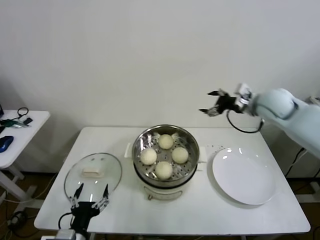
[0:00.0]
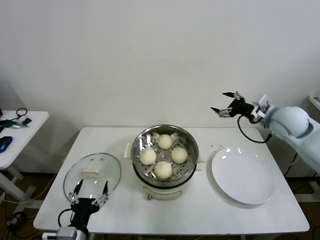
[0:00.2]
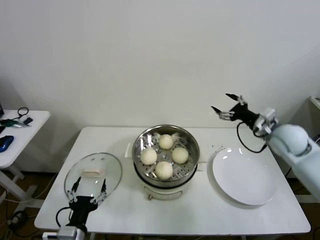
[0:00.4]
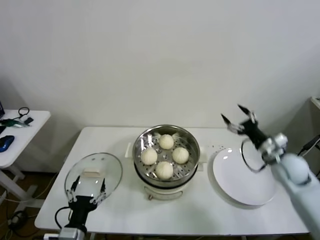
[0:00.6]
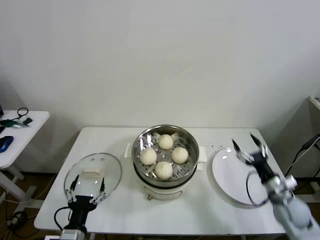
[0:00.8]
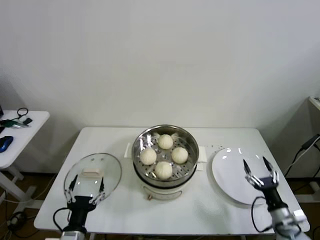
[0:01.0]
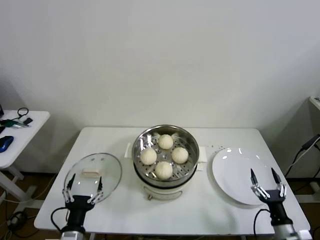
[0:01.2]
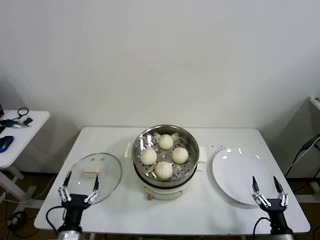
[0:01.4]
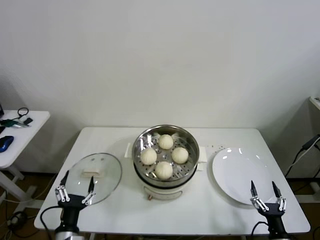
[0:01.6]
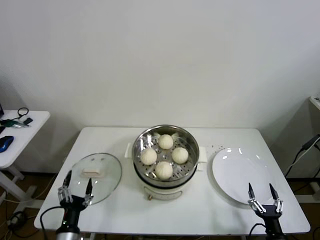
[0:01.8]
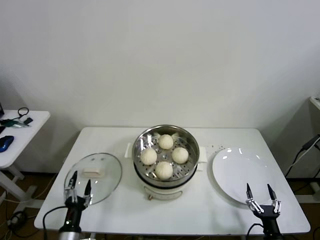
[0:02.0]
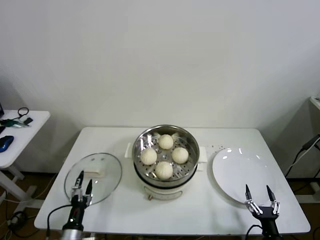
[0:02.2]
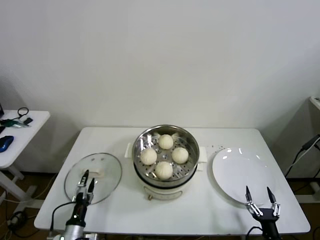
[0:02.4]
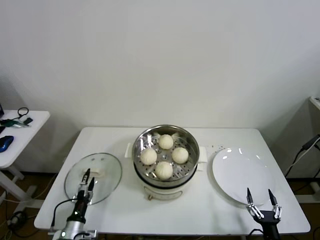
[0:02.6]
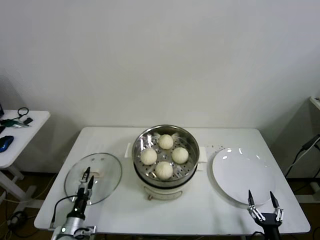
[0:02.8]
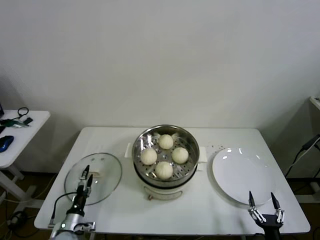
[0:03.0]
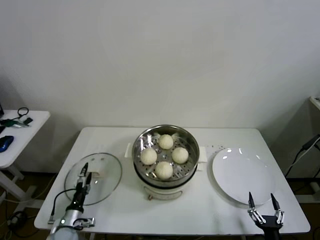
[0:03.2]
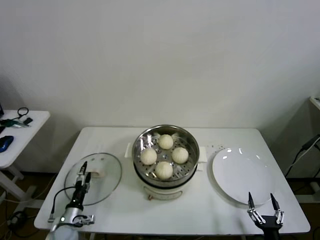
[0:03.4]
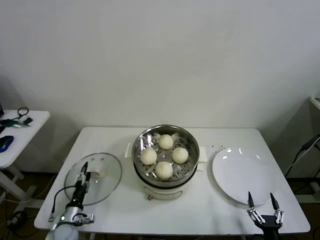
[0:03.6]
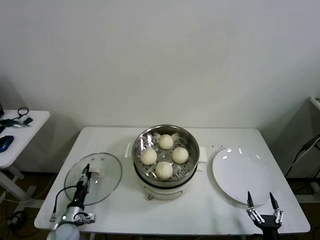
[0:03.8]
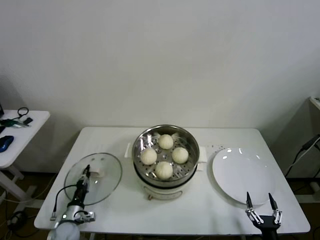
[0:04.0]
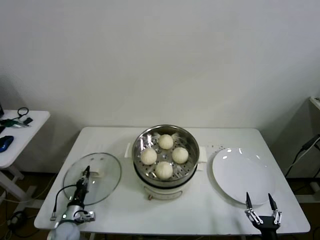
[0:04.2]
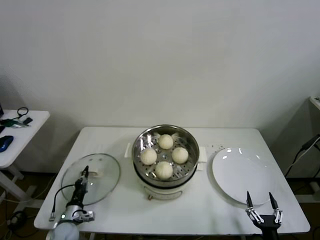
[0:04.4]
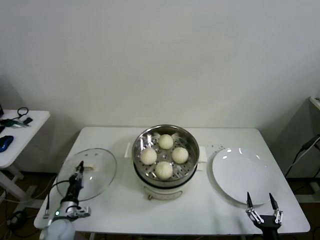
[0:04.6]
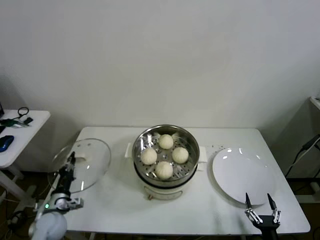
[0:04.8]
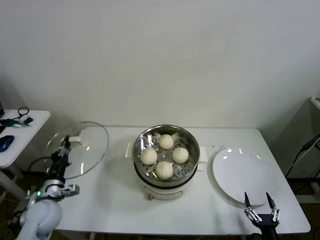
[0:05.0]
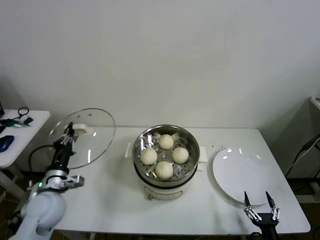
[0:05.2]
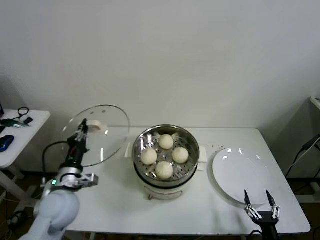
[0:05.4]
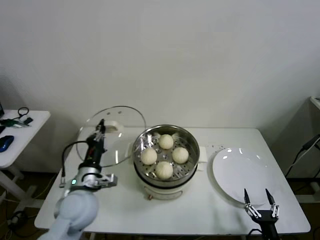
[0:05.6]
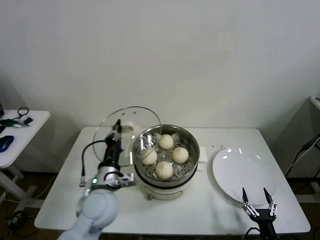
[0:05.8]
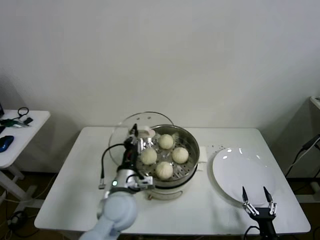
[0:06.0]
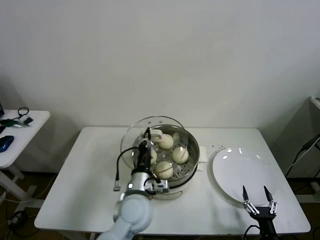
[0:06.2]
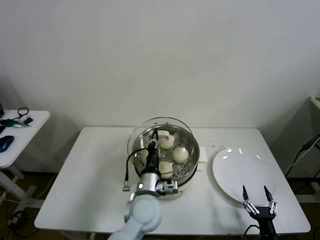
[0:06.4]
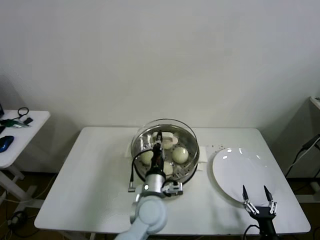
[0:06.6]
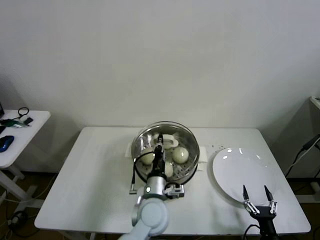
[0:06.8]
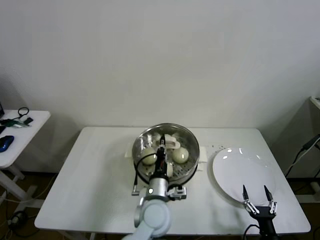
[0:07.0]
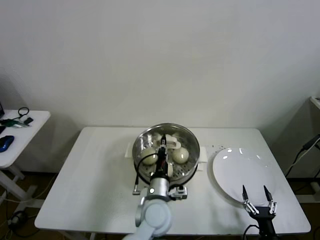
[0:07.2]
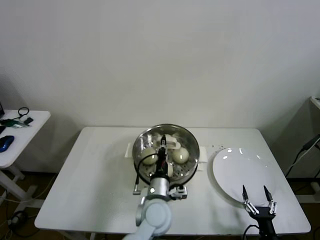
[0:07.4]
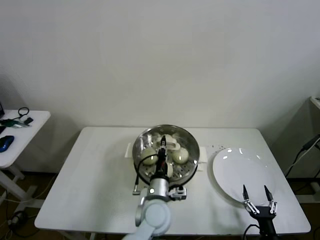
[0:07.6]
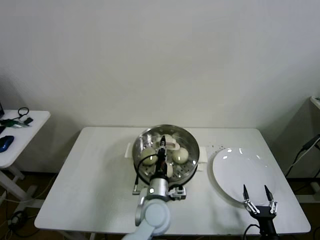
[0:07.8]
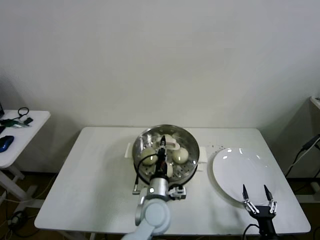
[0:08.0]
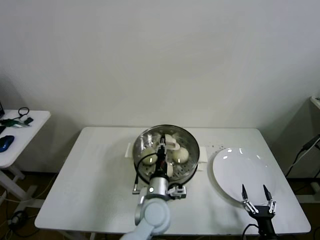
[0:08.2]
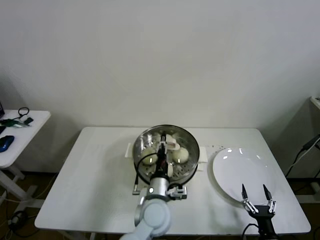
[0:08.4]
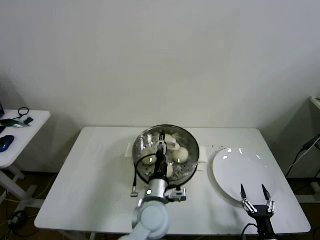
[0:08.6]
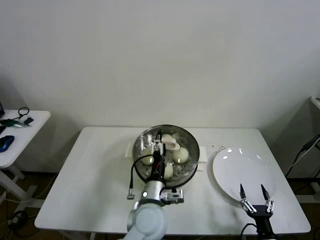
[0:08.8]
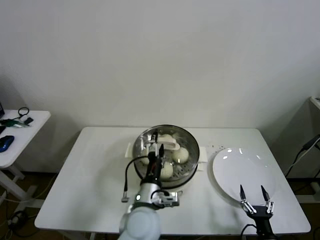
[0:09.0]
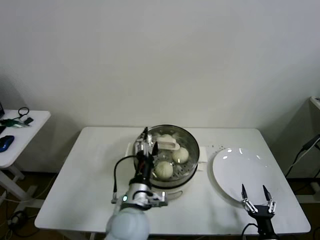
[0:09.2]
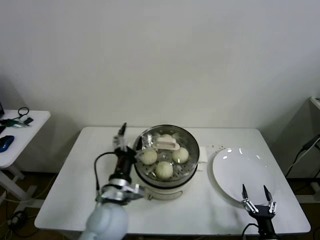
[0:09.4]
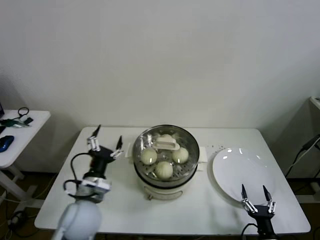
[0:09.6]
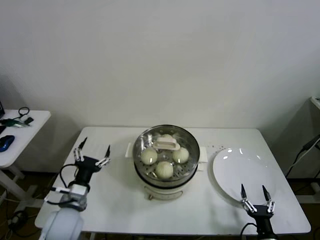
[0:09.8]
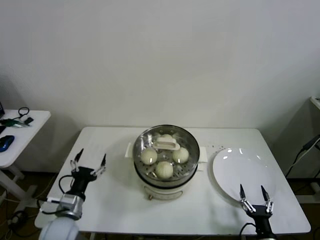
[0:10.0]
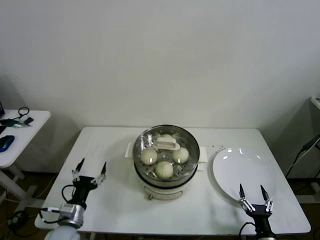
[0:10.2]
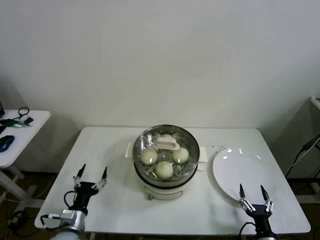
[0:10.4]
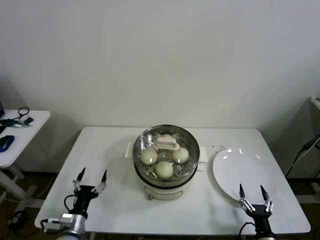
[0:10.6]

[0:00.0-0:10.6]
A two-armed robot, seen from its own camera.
Task of the whole recording: take steamed baozi put them in steamer then cover it.
Step, 0:00.0 to 0:04.0: Grasp the pot lid with left gripper.
Step, 0:04.2 to 0:08.8: Place the pot lid on the steamer with left gripper.
0:00.0 to 0:01.6: The right gripper heads downward and backward, covering some 50 cm, while the left gripper moves approximately 5 cm.
0:01.6 to 0:03.0: The left gripper shifts approximately 20 cm downward, forward and to the left.
0:03.0 to 0:04.6: The left gripper closes.
0:04.6 to 0:06.0: The left gripper heads to the right and upward, covering approximately 30 cm.
0:06.0 to 0:07.6: The left gripper travels to the right and downward by some 15 cm.
0:07.6 to 0:09.0: The left gripper moves approximately 5 cm, and opens up.
0:09.0 to 0:10.6: The left gripper heads to the left and downward, covering about 30 cm.

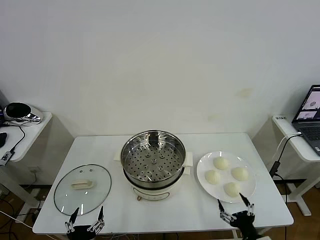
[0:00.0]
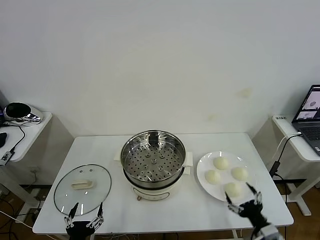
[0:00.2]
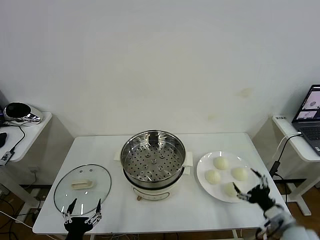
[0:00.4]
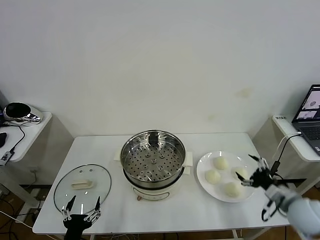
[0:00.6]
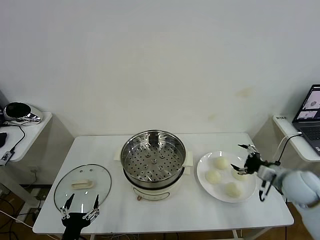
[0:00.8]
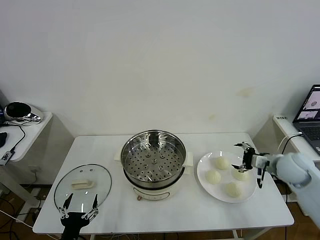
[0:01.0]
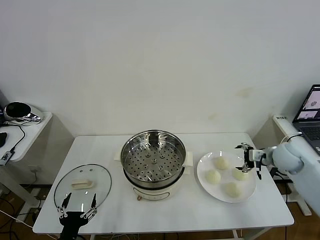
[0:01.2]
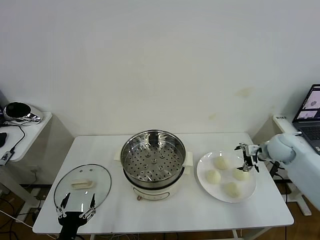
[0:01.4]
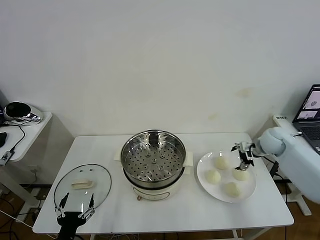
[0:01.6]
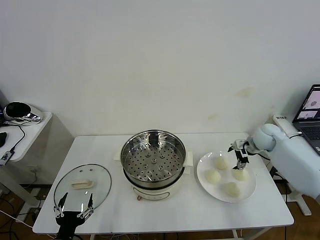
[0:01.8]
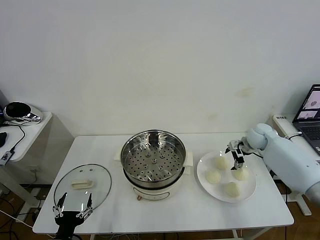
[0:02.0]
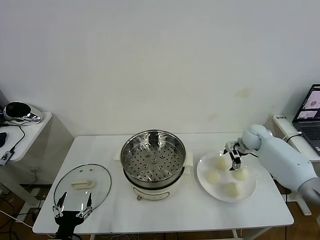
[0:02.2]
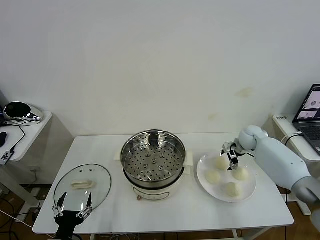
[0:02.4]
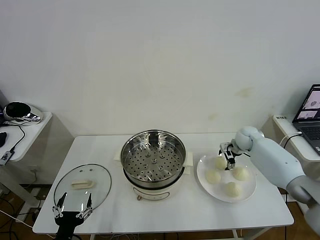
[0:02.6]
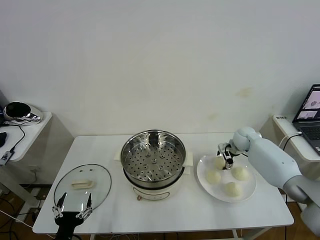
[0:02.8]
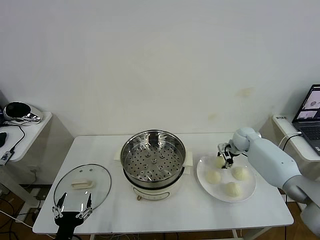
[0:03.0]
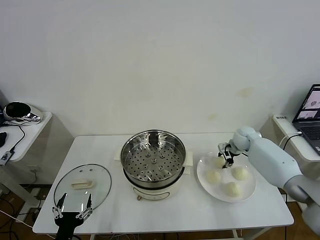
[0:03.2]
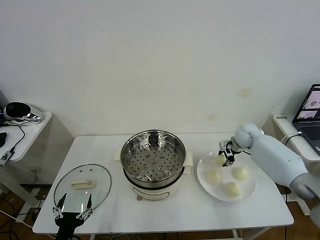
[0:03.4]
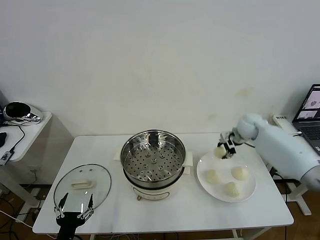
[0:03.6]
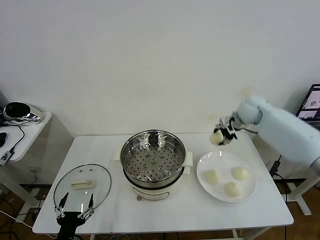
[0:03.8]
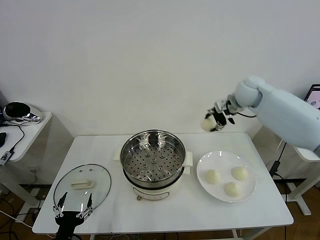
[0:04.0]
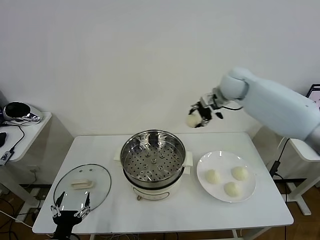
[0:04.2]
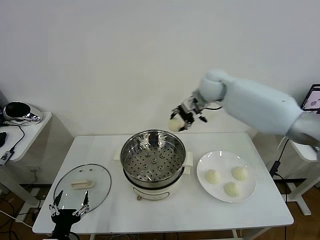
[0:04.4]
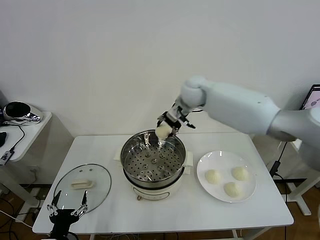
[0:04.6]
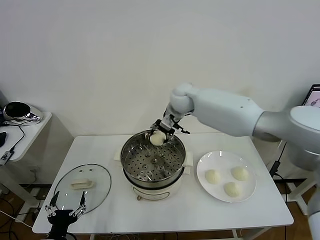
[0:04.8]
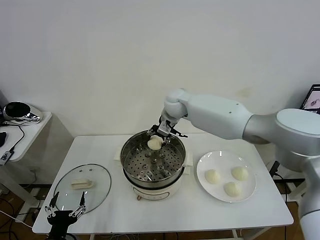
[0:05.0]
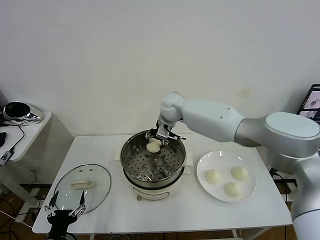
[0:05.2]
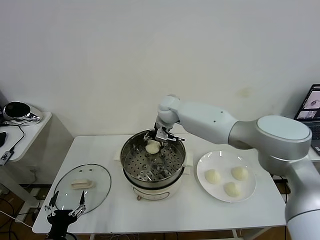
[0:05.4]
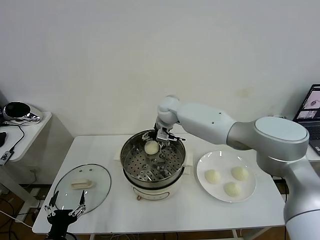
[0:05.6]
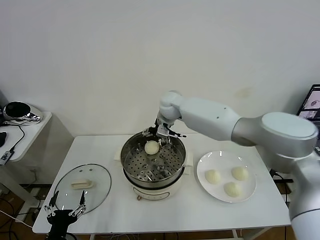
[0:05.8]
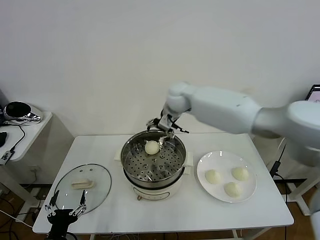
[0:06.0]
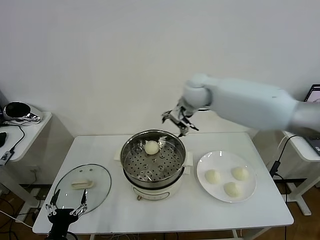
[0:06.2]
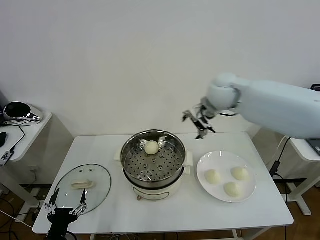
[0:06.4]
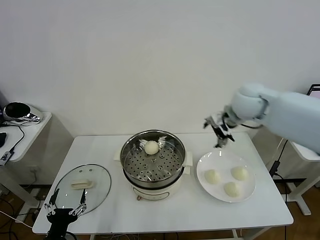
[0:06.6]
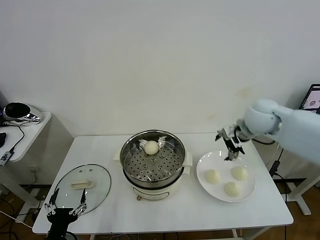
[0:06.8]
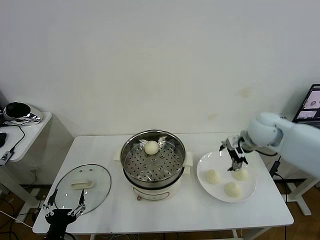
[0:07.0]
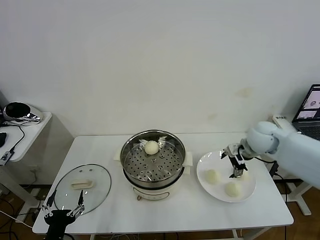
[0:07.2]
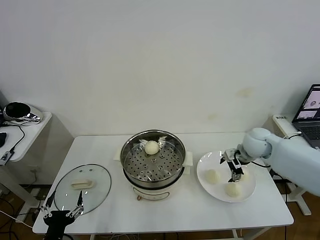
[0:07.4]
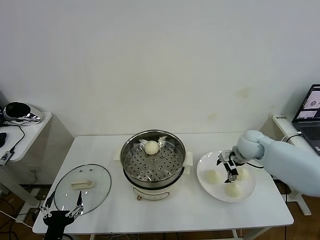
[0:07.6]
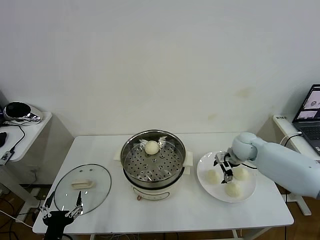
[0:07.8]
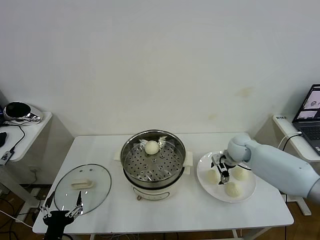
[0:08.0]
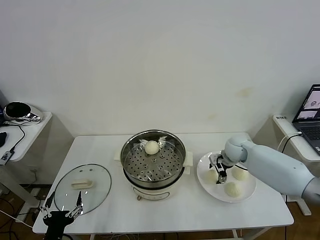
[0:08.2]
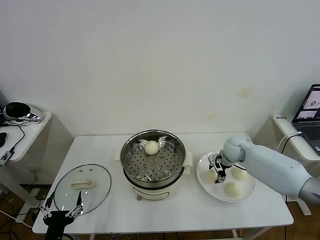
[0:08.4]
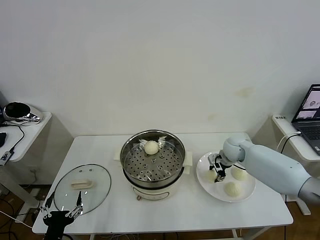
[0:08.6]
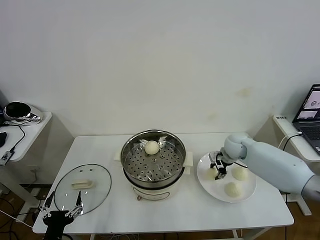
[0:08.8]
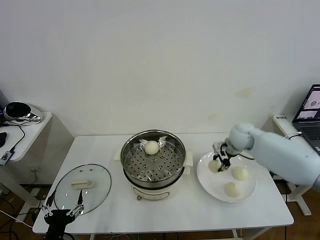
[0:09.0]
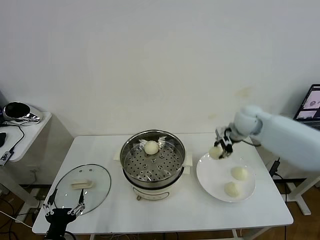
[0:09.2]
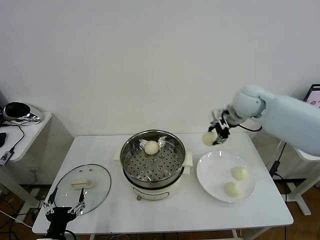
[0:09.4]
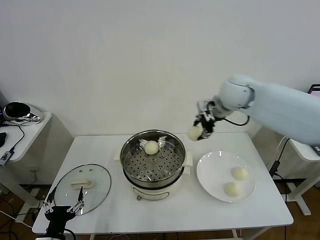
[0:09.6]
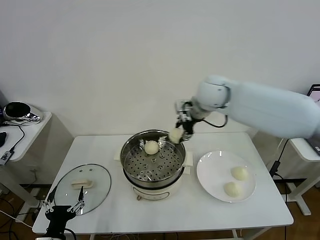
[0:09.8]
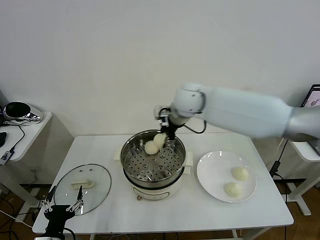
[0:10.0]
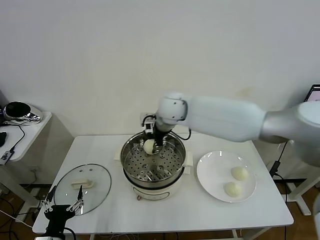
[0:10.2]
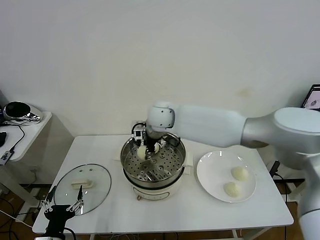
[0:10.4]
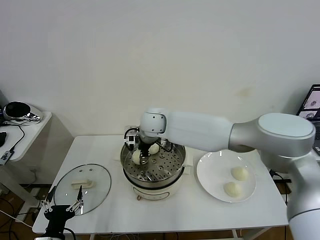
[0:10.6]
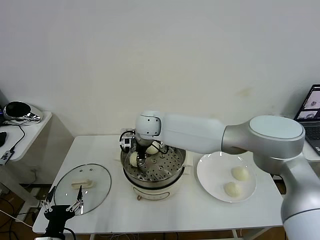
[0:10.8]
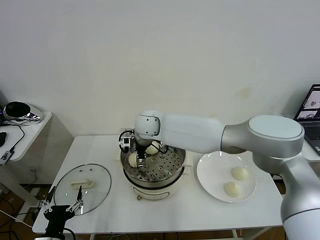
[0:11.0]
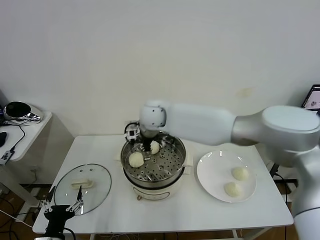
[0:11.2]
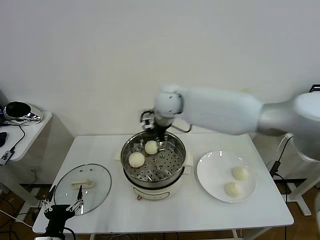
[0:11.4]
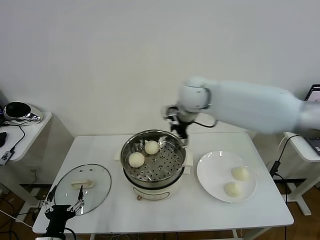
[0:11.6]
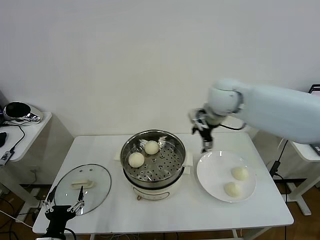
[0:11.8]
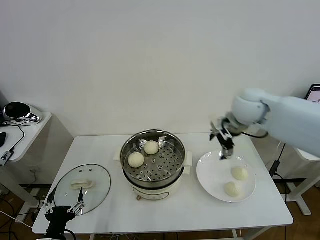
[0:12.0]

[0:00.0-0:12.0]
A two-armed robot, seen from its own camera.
Task of the whole recording: take steamed baozi put them in steamer then cover it.
Step, 0:00.0 to 0:03.0: Grasp the baozi in the plate with right gripper.
Step, 0:03.2 to 0:05.4: Place the baozi on the steamer with right gripper.
Step, 0:05.8 to 0:08.4: Grasp the baozi in the plate with right gripper.
Step, 0:08.6 to 0:11.0: Place the baozi on the steamer with right gripper.
0:01.6 to 0:03.0: The right gripper goes approximately 10 cm downward and to the left, and closes up.
0:03.0 to 0:04.4: The right gripper shifts approximately 30 cm to the left and upward.
0:04.4 to 0:06.0: The right gripper reaches approximately 10 cm downward, then returns, and opens.
0:06.0 to 0:07.6: The right gripper heads to the right and downward, covering some 30 cm.
0:07.6 to 0:09.0: The right gripper goes some 5 cm upward, and closes up.
0:09.0 to 0:10.4: The right gripper is displaced to the left by roughly 30 cm.
0:10.4 to 0:12.0: The right gripper shifts approximately 30 cm to the right, and opens.
